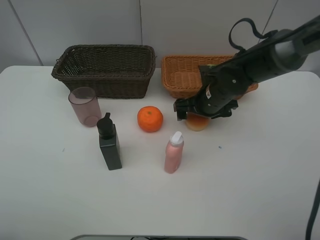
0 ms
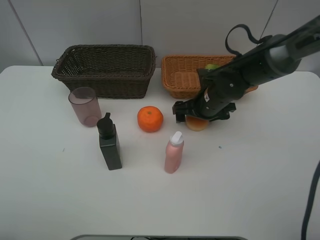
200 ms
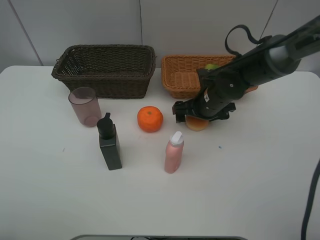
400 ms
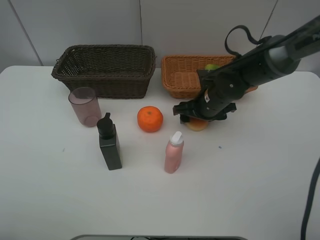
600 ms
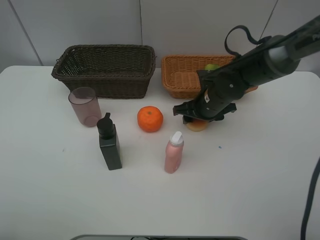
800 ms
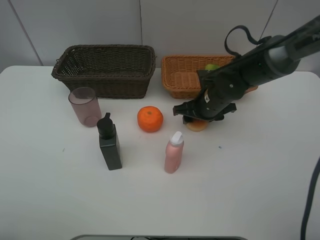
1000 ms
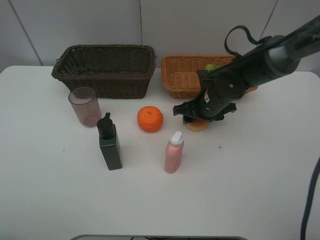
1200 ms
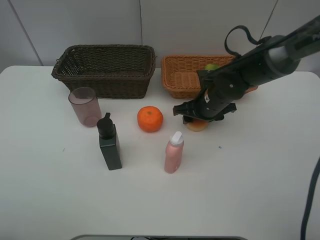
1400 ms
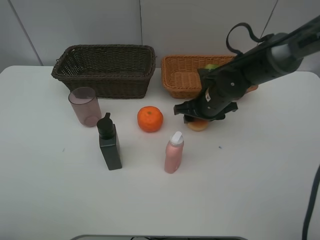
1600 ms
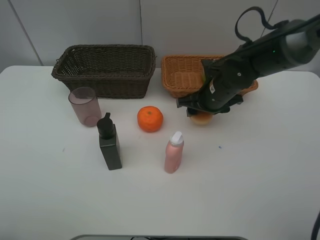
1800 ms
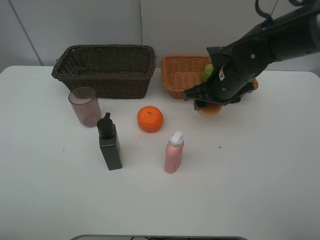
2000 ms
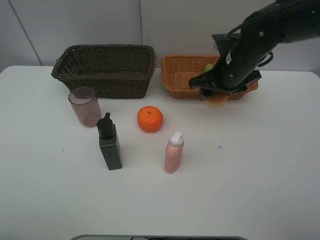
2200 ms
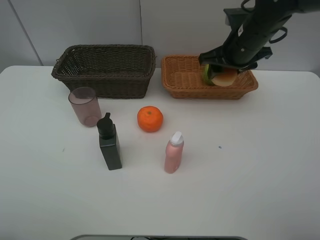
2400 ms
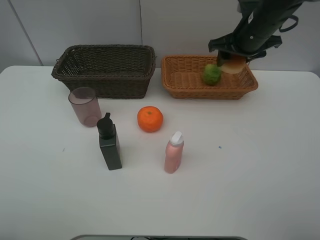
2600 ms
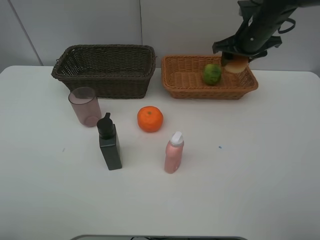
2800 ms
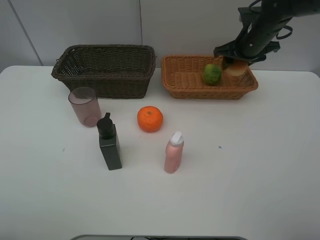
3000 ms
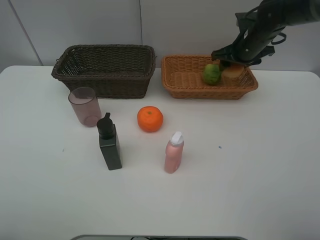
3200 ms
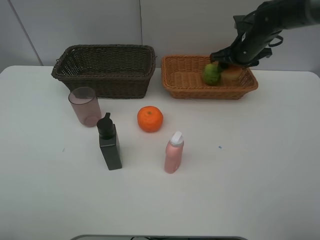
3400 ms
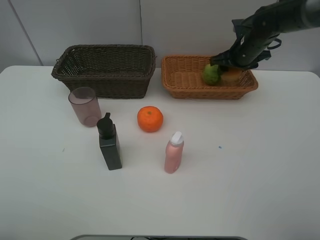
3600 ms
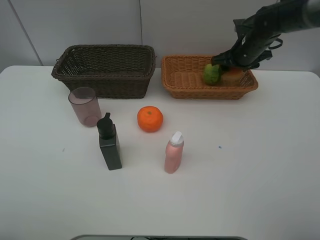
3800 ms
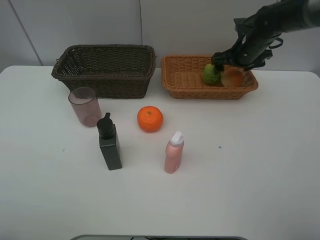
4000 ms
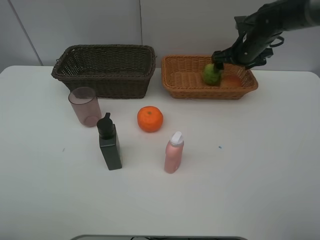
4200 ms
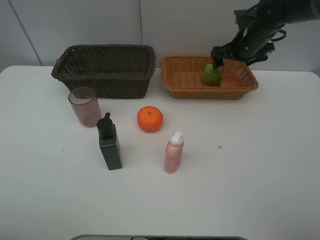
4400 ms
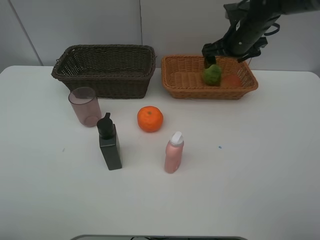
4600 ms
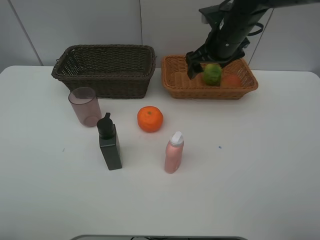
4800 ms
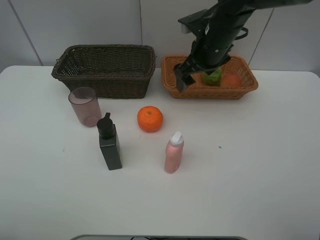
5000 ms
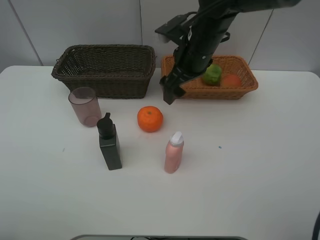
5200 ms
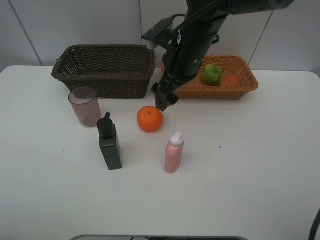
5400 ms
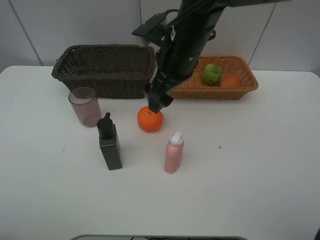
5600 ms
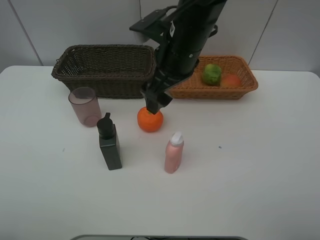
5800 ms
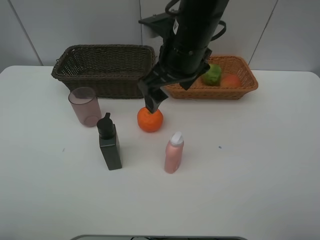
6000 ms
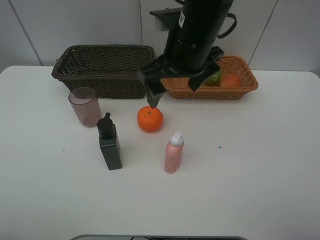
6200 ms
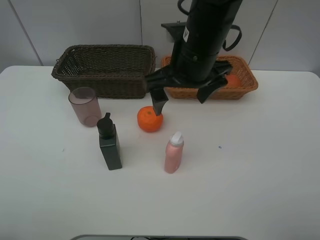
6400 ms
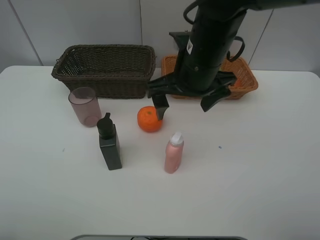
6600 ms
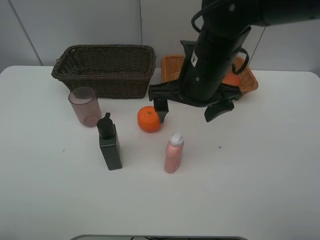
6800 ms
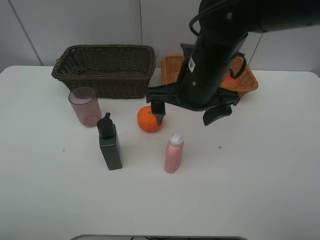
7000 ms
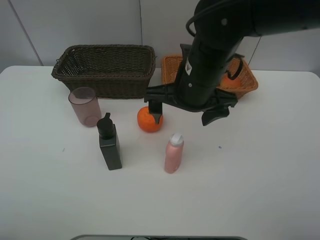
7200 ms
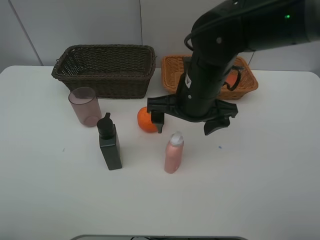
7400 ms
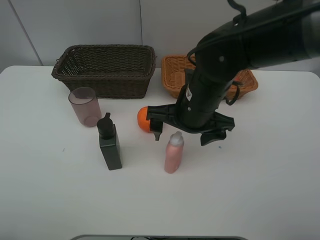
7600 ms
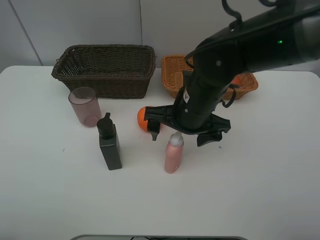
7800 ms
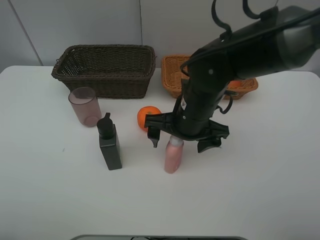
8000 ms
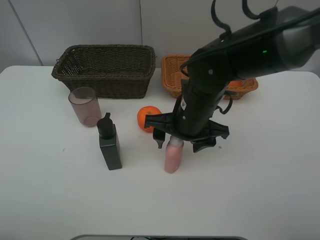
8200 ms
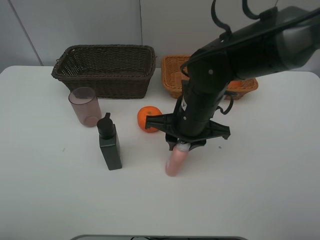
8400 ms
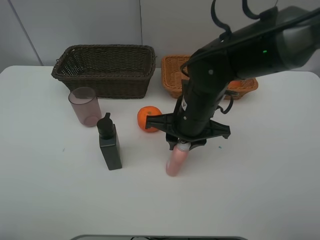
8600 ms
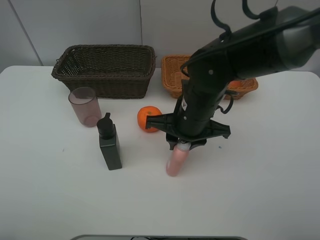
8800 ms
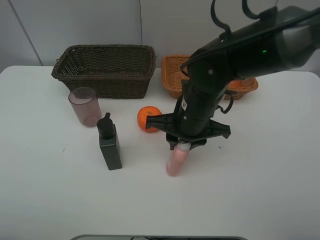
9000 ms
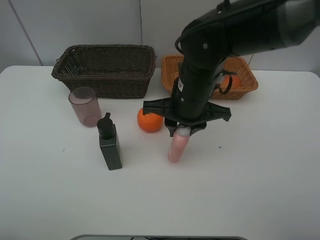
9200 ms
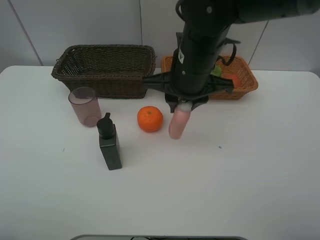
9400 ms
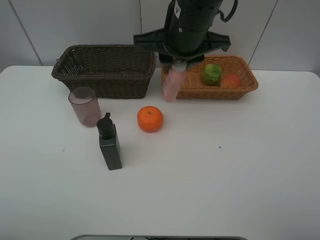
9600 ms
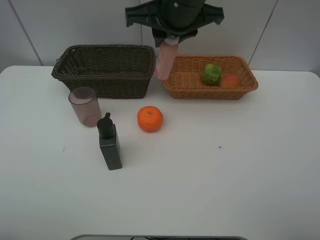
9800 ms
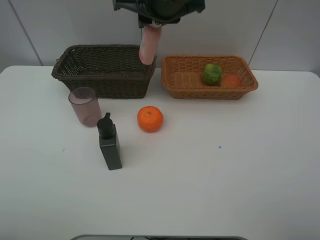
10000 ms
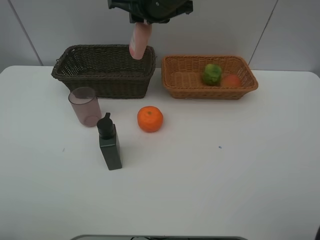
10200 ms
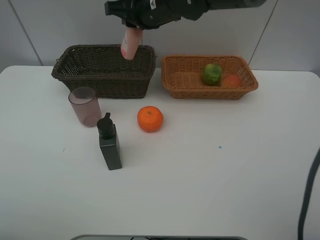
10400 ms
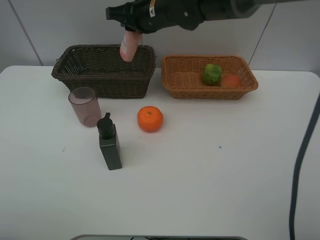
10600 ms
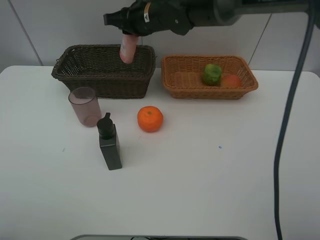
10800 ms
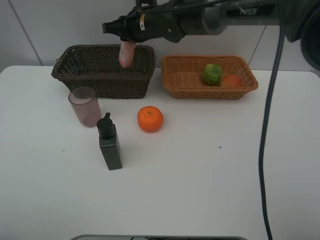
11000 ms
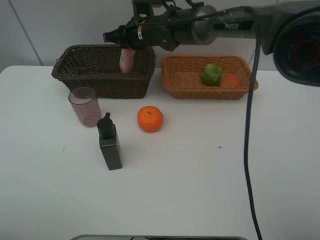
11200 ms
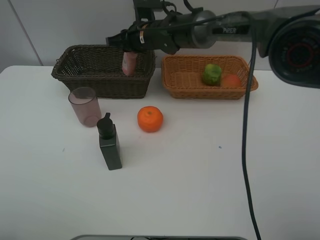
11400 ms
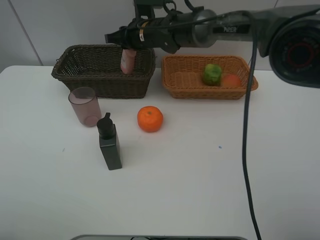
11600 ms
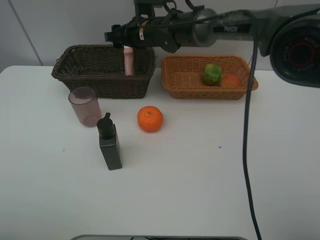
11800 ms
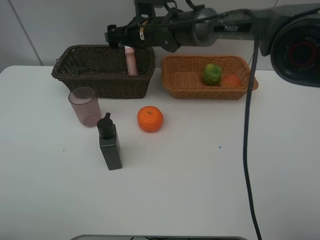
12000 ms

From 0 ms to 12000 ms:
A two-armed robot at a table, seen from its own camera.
Task of the whole recording: place multiple objects separately in different baskets.
From 0 ms to 1600 ms: The right gripper closes up.
From 1600 ms to 3000 ms: The right gripper shifts approximately 15 cm upward, forward and to the right.
From 3000 ms to 4400 ms: The right gripper opens its fingers.
From 4400 ms to 6000 ms: The right gripper shifts some 25 cm to the left and backward.
From 6000 ms to 7600 ms: The right gripper goes about 10 cm downward.
From 7600 ms to 9000 ms: The right gripper closes its fingers.
From 9000 ms to 10400 ms: The right gripper moves forward, upward and to the left, some 20 cm.
From 10400 ms to 12000 ms: The right gripper shifts some 10 cm downward and forward, and opens its fingers.

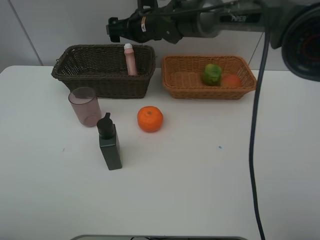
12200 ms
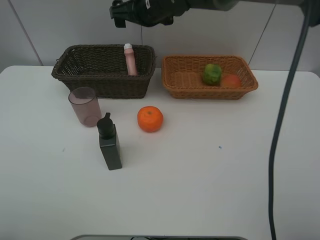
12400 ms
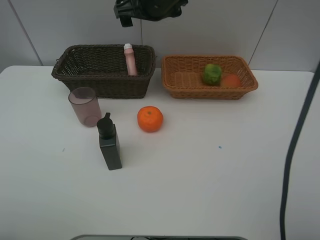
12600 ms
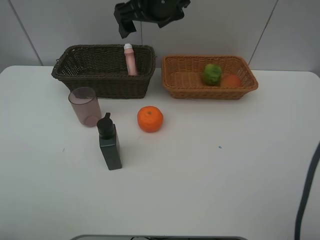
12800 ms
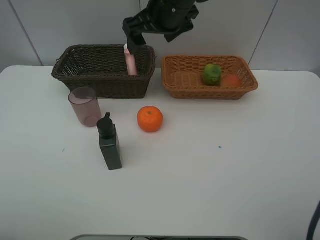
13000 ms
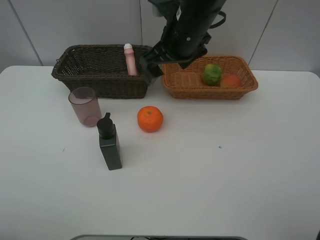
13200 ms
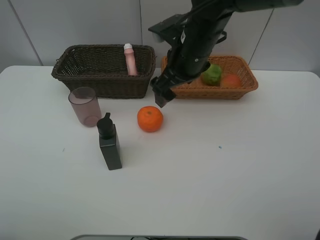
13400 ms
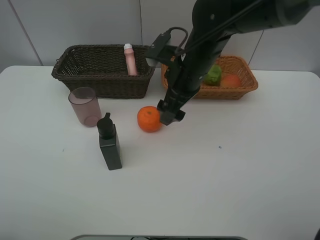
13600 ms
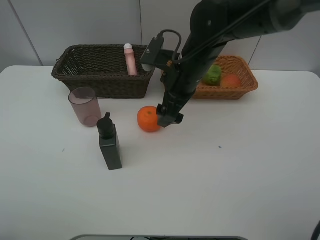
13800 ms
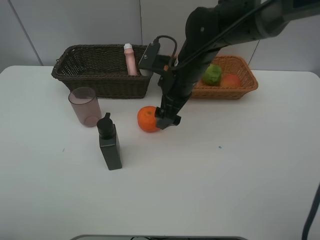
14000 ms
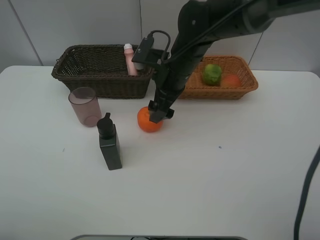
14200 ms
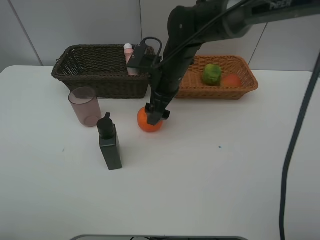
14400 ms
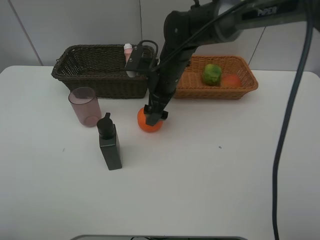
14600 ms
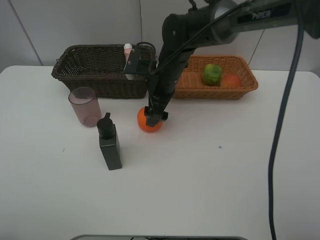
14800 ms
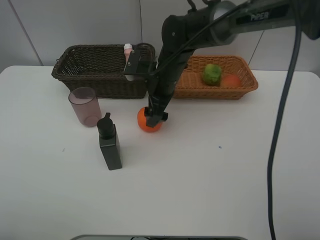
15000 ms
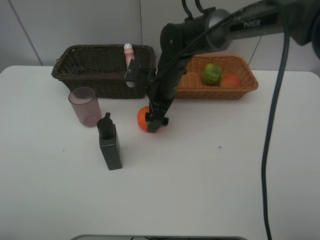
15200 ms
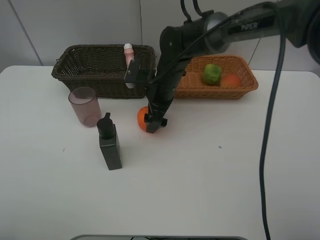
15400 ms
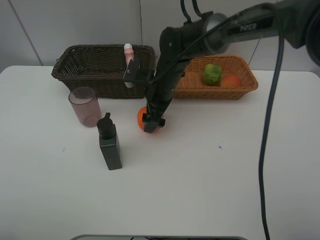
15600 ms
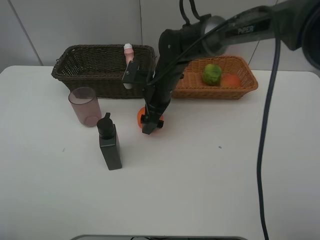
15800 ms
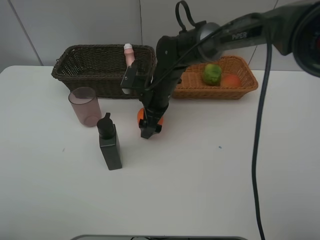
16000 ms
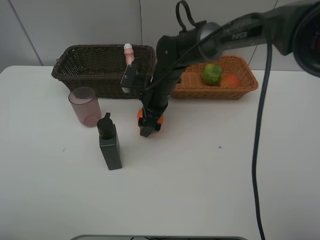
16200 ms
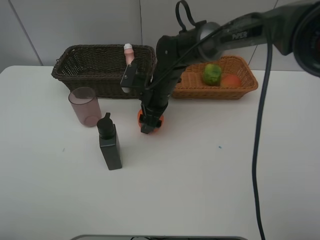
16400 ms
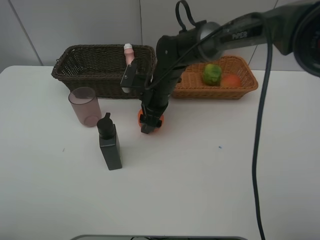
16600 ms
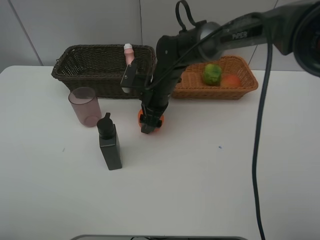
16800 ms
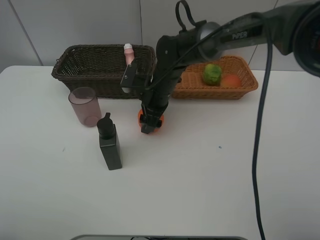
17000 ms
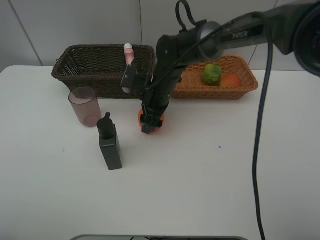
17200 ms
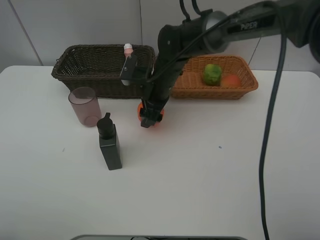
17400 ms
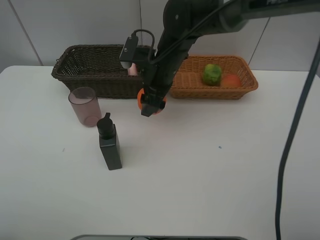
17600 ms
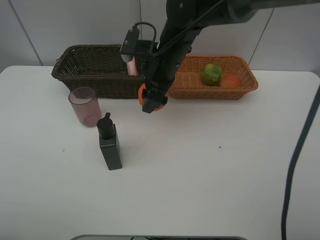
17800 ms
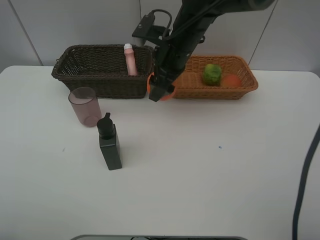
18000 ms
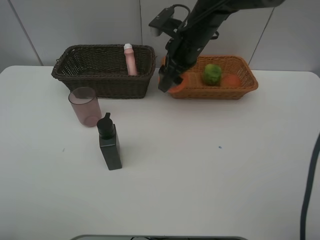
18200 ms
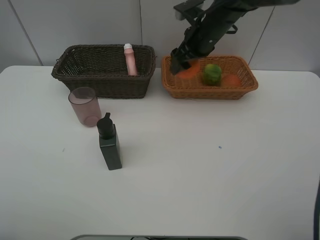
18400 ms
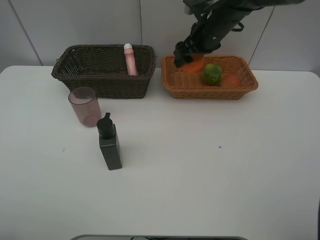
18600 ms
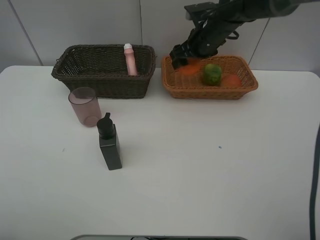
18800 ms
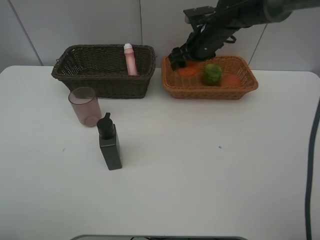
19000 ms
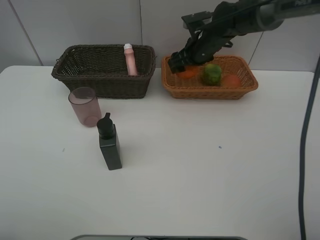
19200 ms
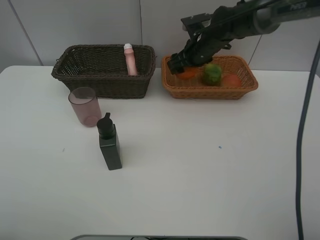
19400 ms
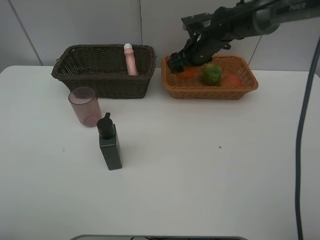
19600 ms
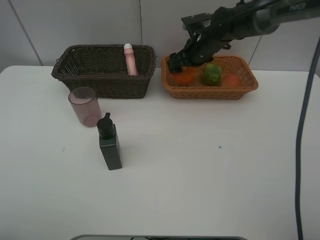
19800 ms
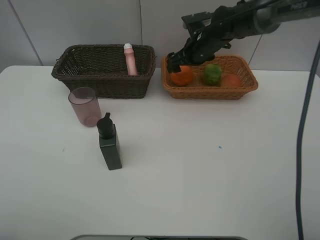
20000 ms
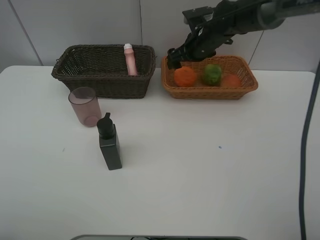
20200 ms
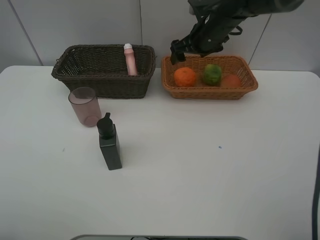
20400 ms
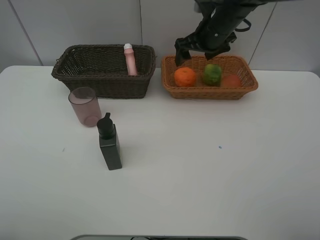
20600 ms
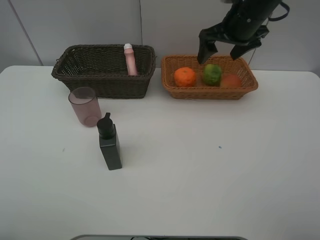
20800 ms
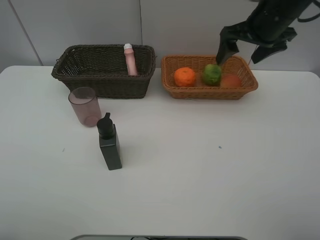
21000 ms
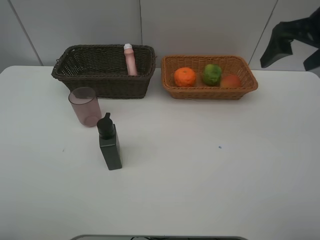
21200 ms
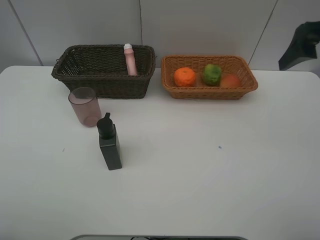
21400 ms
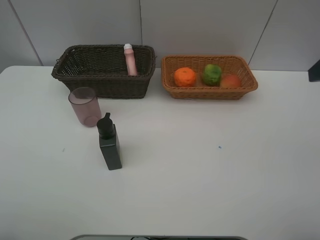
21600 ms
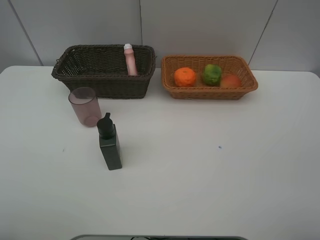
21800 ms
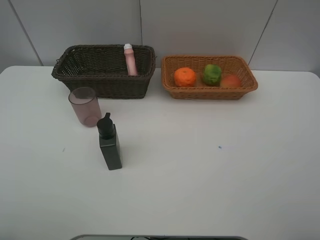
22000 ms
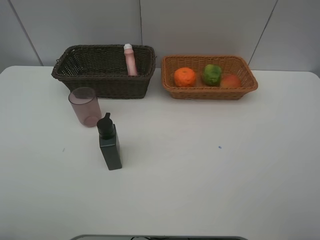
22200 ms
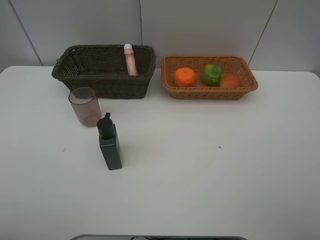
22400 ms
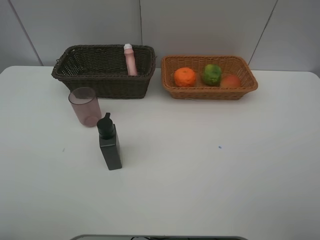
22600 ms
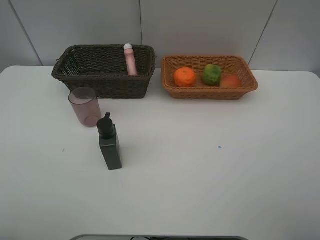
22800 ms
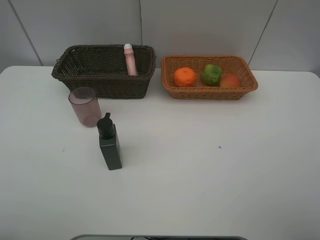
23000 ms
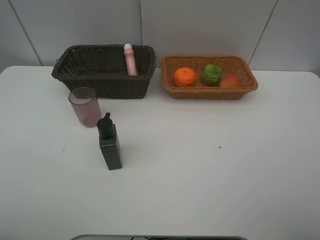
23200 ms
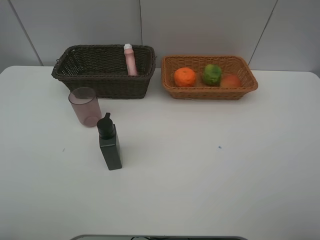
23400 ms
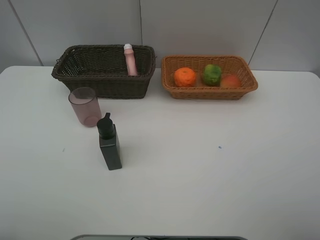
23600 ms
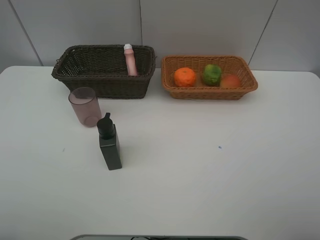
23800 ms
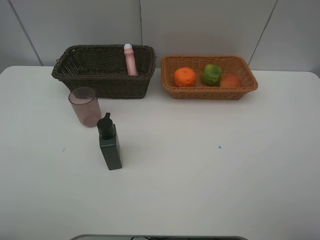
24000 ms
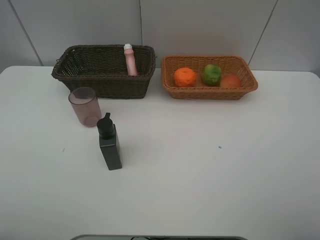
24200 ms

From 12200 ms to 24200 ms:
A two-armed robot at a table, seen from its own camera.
Task of the whole recording: place multiple objects separately in different baskets.
From 12200 ms to 13800 ms: The right gripper is displaced backward and to the right by some 15 cm.
From 13800 ms to 15200 ms: The right gripper goes about 10 cm downward and forward.
From 15200 ms to 16600 ms: The right gripper closes its fingers.
From 16600 ms to 18200 ms: The right gripper heads upward and to the right, covering about 10 cm.
From 18200 ms to 19800 ms: The right gripper is displaced forward and downward by some 10 cm.
From 19800 ms to 21200 ms: The right gripper is displaced backward, to the right and upward by some 30 cm.
From 21200 ms to 22600 ms: The right gripper heads backward, covering roughly 25 cm.
